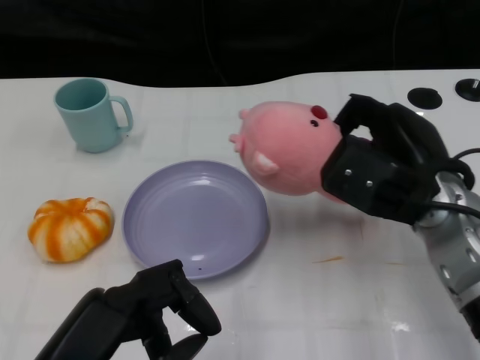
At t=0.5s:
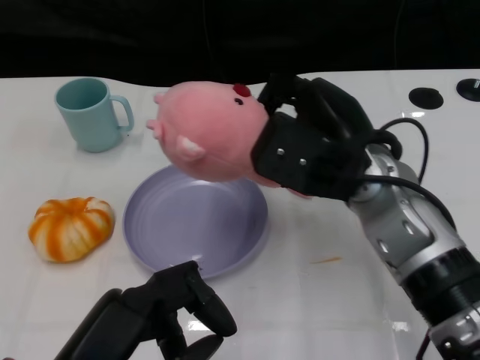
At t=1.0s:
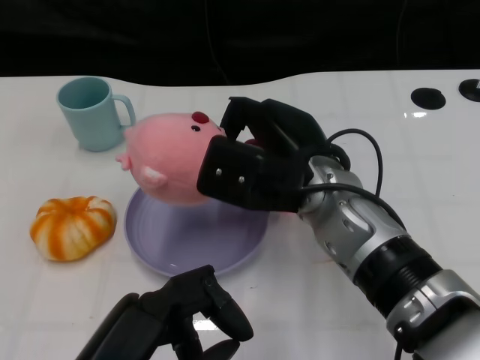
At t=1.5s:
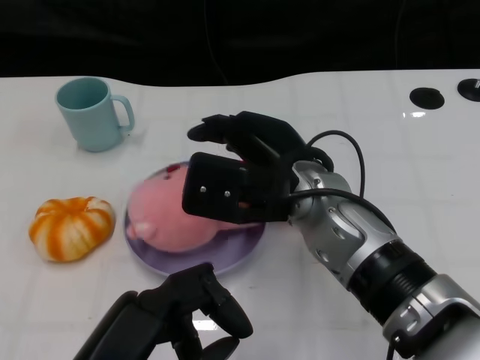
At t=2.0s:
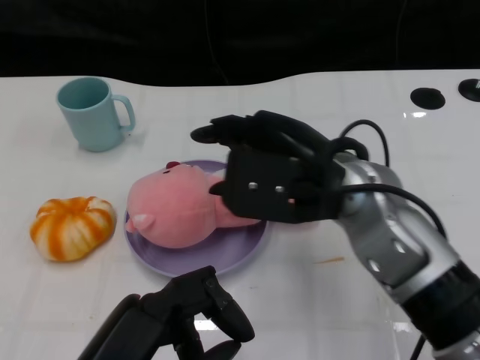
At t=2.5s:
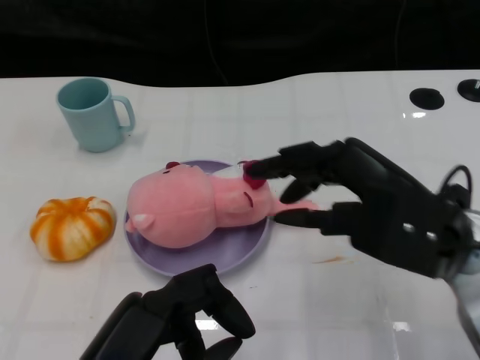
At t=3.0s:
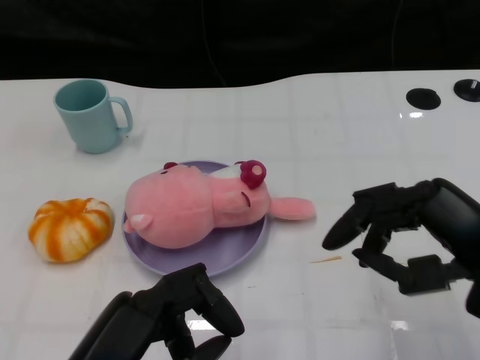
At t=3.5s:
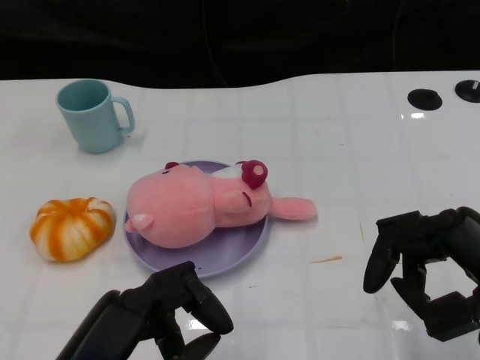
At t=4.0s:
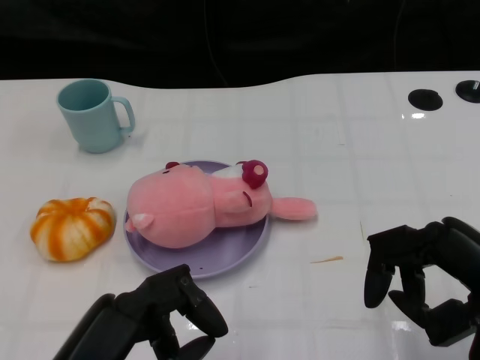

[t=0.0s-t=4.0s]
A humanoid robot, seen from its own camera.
Task of the whole recording: Pick up the doll on the other side of the plate and place it into the plate.
Step, t=0.5s to t=2.0s: Place the pink doll into the plate with the right gripper.
t=0.0s to t=2.0s: The right hand moves to the left, roughly 10 cm.
t=2.0s to t=4.0s: The right hand shifts roughly 20 cm to the right and backward.
